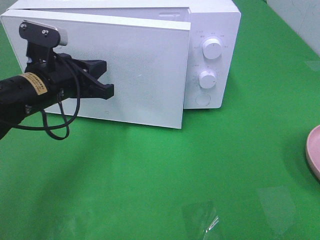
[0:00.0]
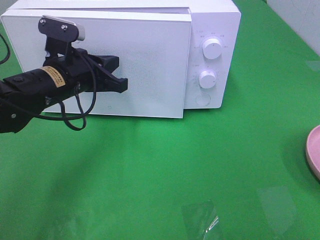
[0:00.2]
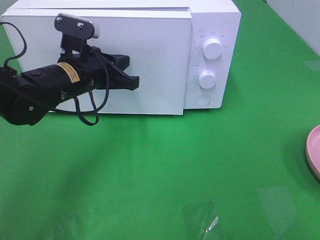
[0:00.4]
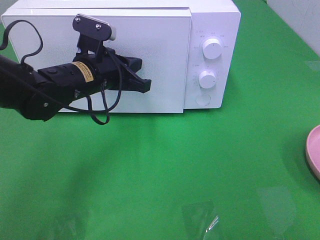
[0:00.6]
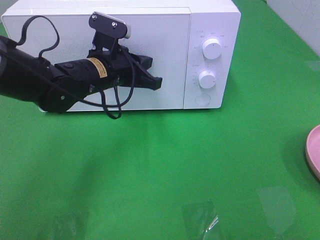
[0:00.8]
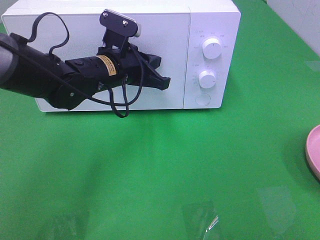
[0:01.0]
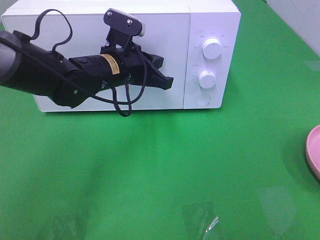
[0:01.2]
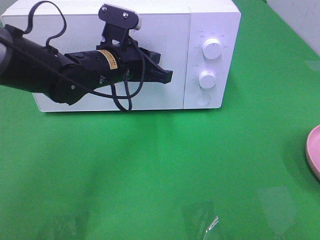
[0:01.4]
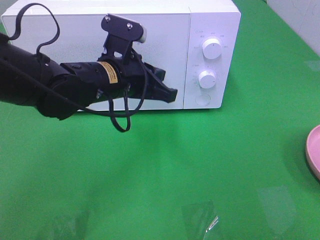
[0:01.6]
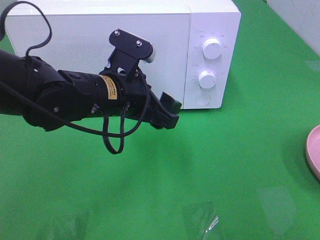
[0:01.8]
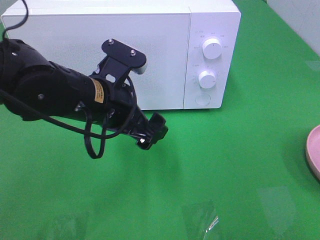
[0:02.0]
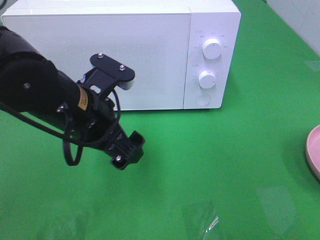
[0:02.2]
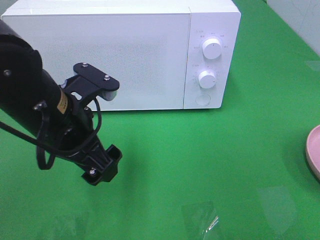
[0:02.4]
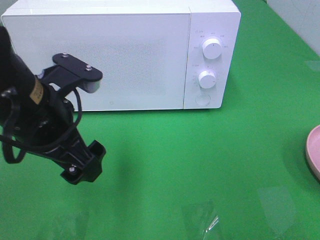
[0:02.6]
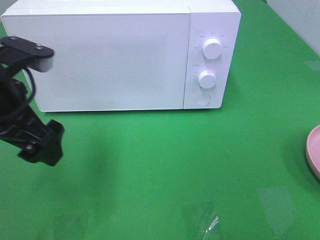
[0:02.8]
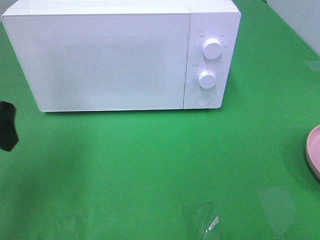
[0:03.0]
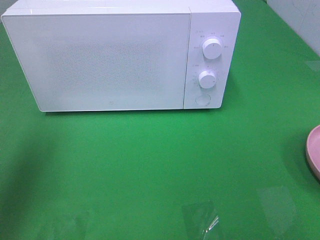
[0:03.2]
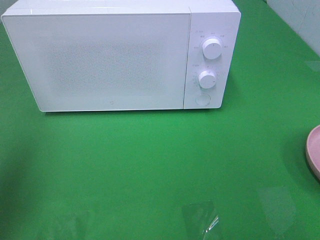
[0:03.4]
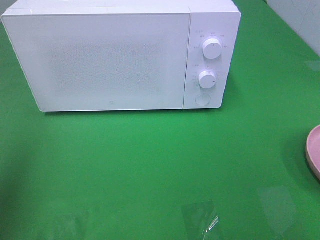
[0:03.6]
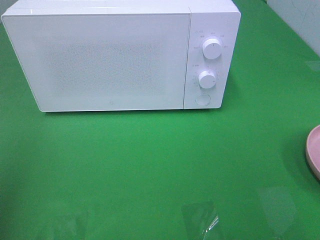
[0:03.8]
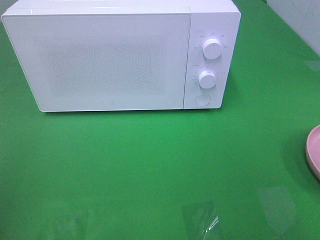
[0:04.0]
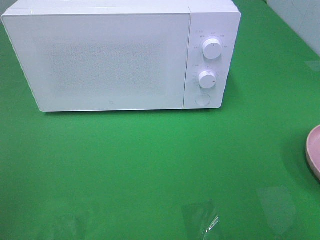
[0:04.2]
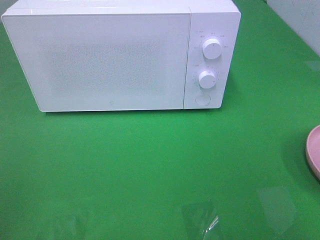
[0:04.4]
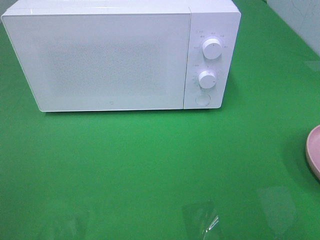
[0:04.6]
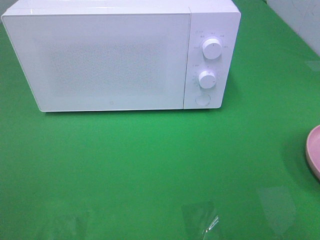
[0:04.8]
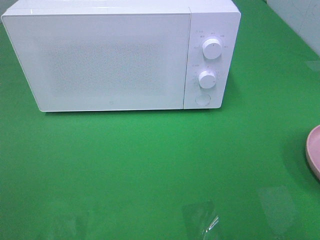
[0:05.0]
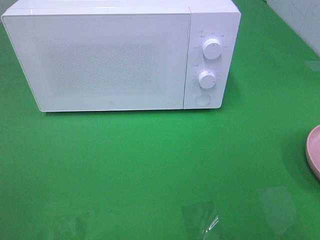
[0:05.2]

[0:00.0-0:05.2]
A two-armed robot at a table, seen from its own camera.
Task of the whole recording: Heat the burger.
0:00.0 to 0:01.8: The left gripper heads to the right, covering approximately 10 cm, and opens its fingers.
0:01.8 to 0:03.4: The left gripper is displaced to the left and upward by some 30 cm.
0:03.4 to 0:05.2: The left gripper moves backward, approximately 20 cm.

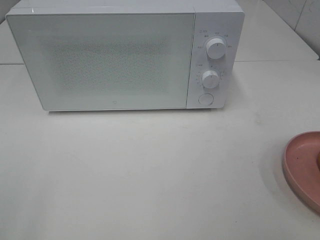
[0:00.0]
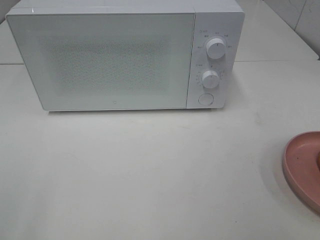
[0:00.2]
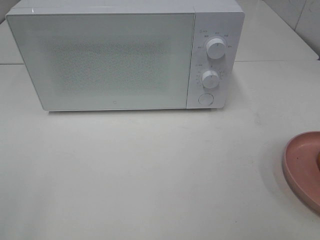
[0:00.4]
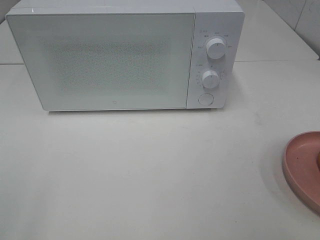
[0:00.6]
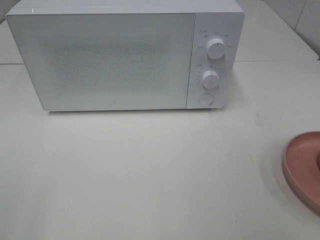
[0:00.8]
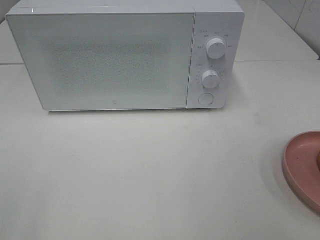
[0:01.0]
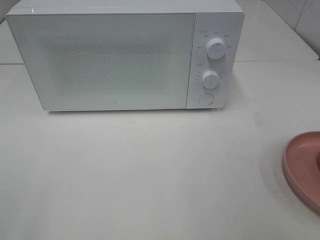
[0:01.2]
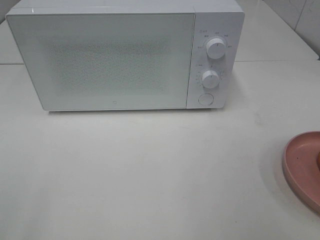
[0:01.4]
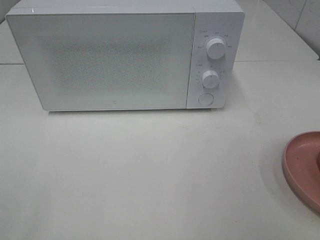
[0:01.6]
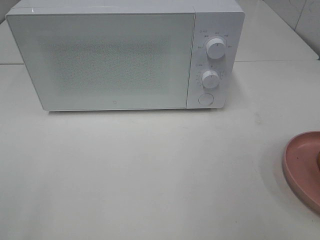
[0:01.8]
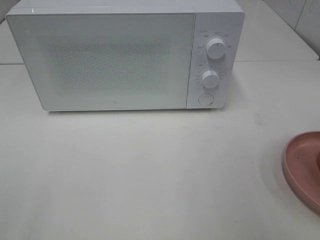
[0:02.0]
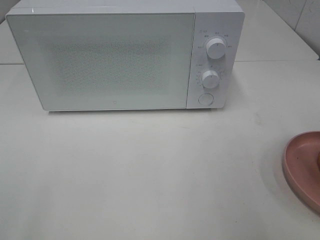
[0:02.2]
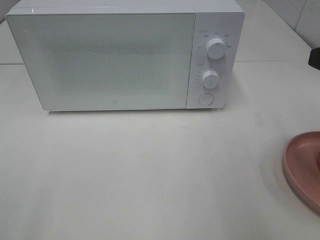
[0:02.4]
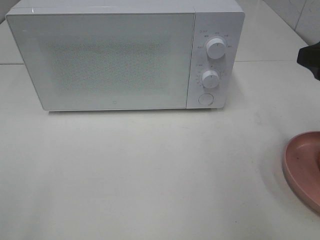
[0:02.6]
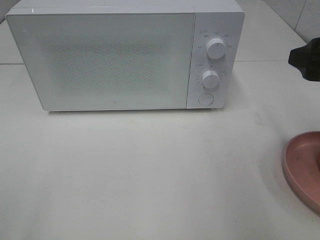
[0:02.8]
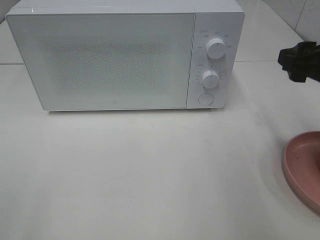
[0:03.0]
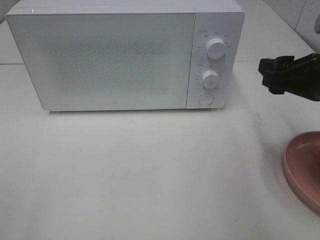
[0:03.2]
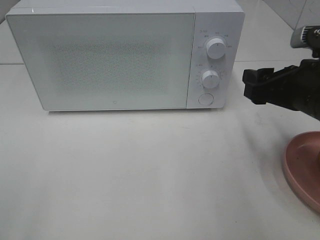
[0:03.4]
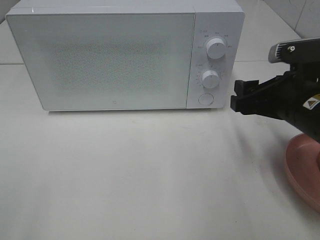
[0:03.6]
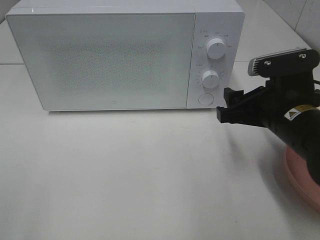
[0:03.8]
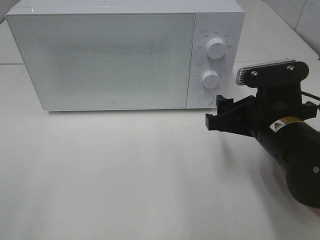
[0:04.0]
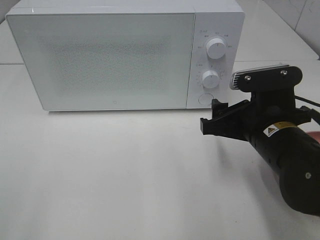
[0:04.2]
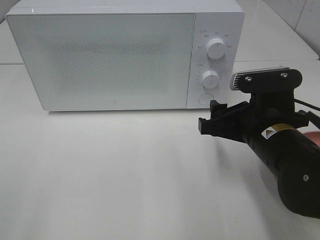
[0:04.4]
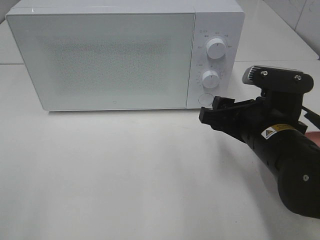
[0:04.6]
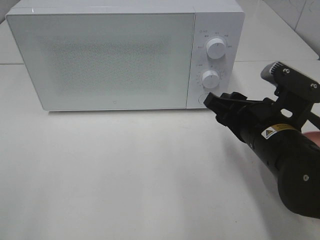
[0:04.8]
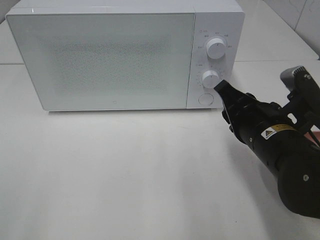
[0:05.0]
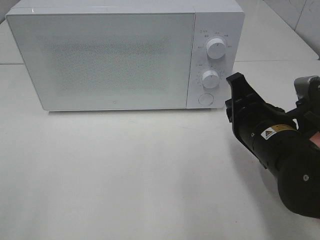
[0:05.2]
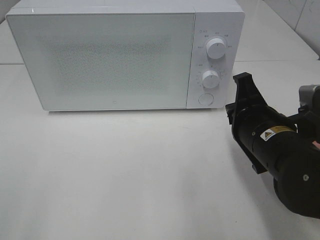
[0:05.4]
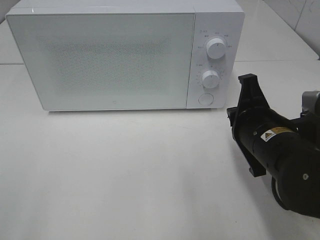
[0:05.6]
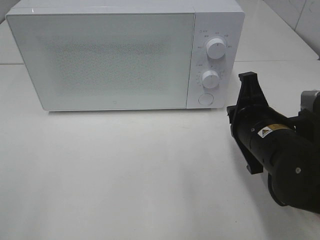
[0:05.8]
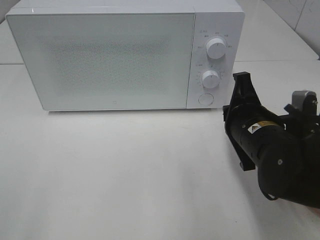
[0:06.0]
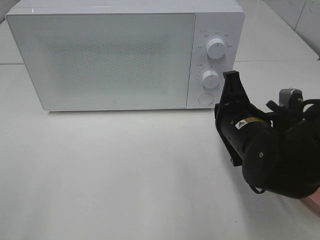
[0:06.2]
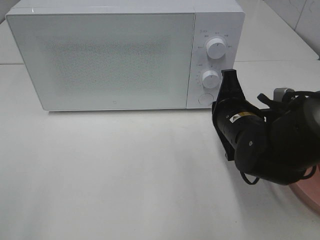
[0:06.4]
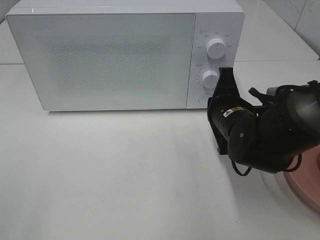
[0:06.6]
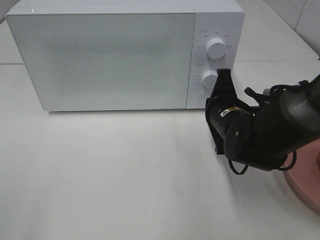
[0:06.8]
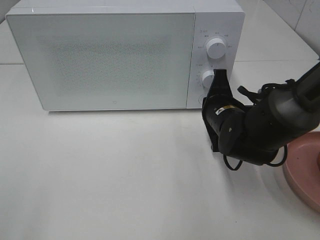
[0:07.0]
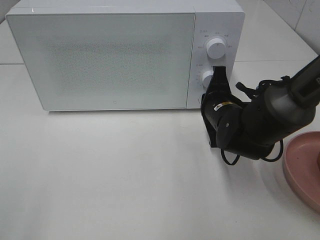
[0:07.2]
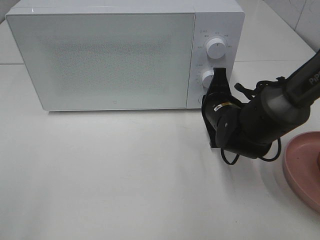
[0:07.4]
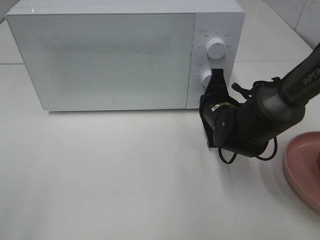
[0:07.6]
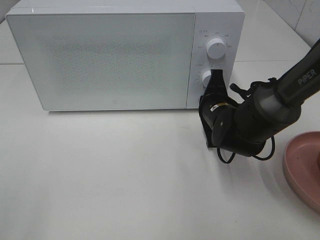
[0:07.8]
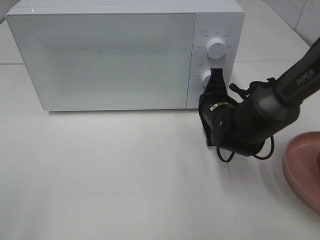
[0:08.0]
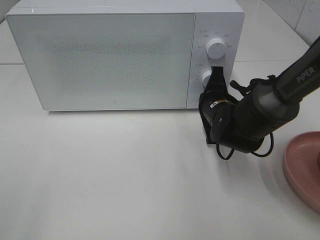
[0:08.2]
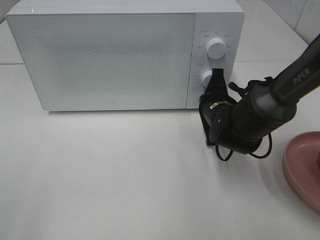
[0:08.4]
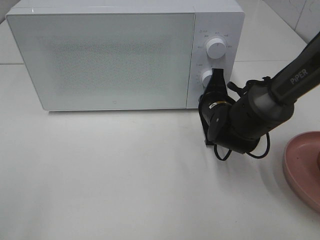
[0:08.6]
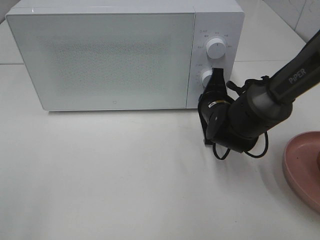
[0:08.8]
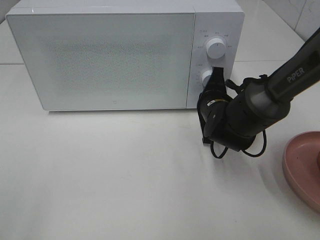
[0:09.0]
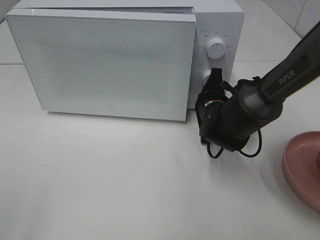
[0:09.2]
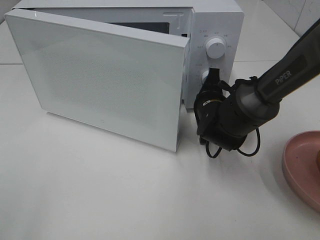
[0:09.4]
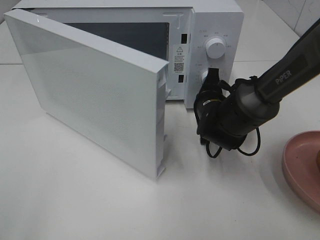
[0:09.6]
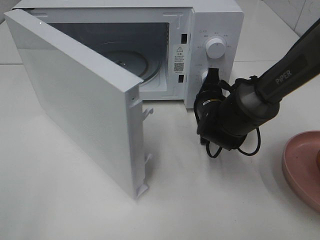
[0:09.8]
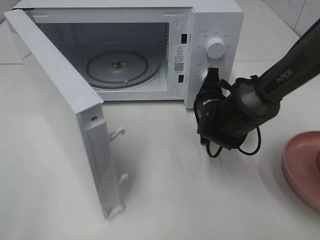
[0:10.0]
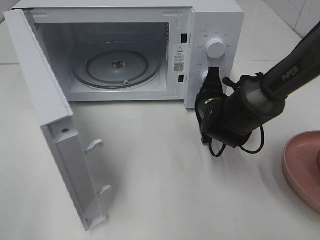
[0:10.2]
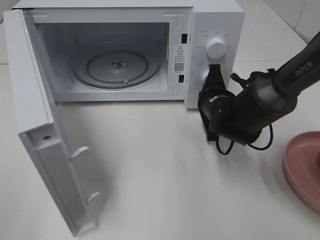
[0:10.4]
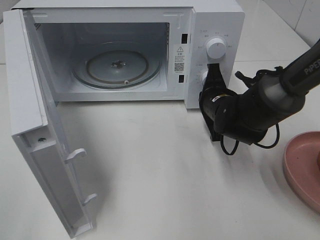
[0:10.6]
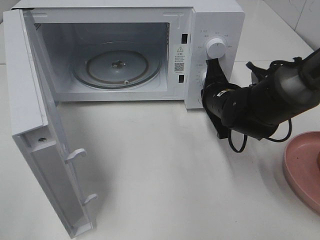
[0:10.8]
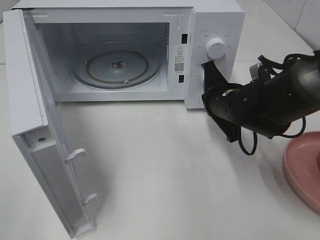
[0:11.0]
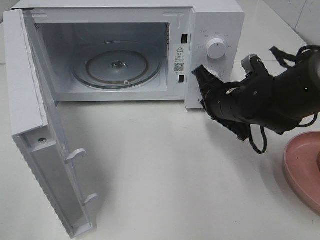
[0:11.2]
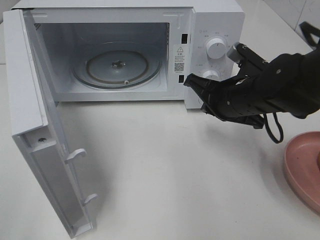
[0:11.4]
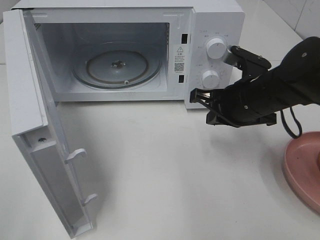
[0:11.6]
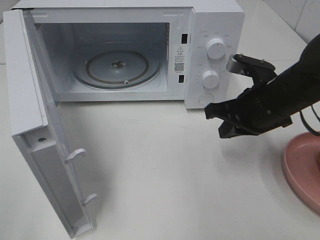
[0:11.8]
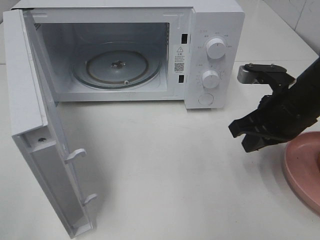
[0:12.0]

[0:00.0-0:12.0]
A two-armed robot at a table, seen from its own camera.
Task of the whole recording: Heat the burger.
Step, 0:00.0 to 0:10.6: Right hand: press the switch.
0:01.6 to 0:03.0: The right gripper moves forward and downward, roughly 15 cm.
0:03.0 to 0:04.4: The right gripper is displaced to the left and downward by some 15 cm.
0:04.4 to 0:06.0: The right gripper closes up.
0:06.0 to 0:07.6: The right gripper shifts some 10 cm forward and downward.
0:07.6 to 0:09.0: The grippers move only a little.
0:10.4 to 0:12.0: The right gripper travels upward, backward and to the right by about 15 cm.

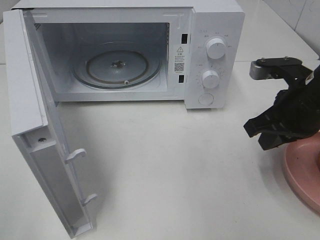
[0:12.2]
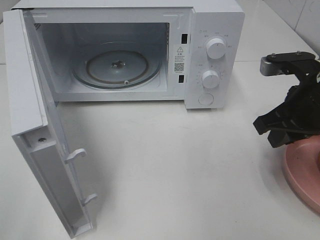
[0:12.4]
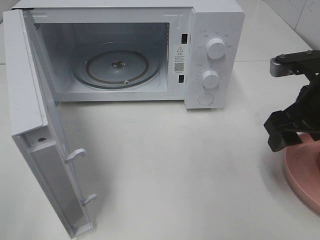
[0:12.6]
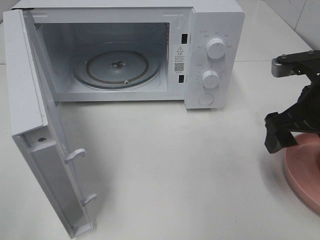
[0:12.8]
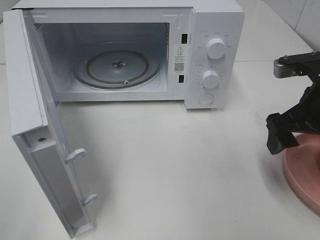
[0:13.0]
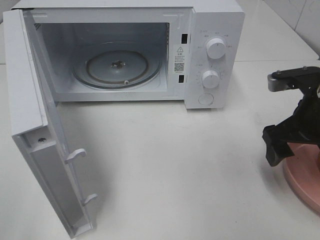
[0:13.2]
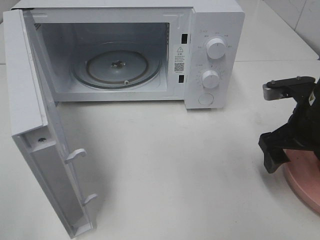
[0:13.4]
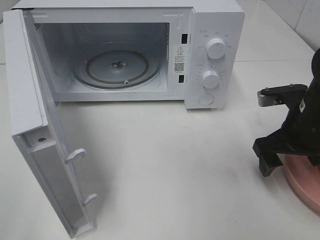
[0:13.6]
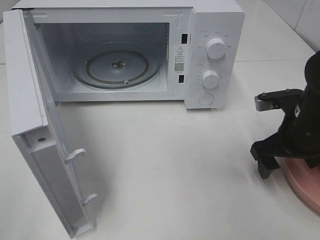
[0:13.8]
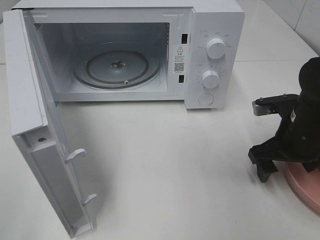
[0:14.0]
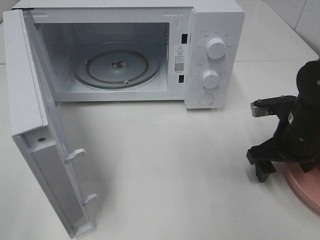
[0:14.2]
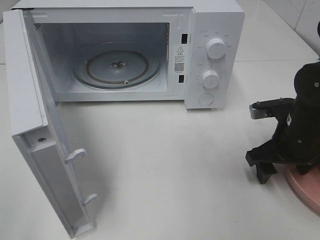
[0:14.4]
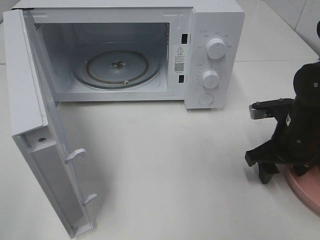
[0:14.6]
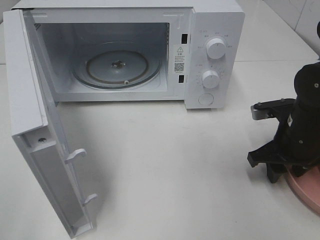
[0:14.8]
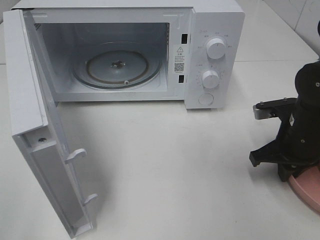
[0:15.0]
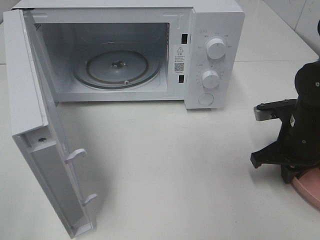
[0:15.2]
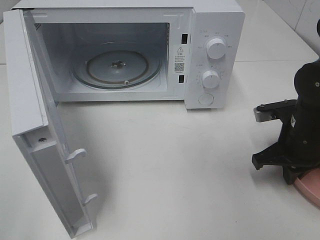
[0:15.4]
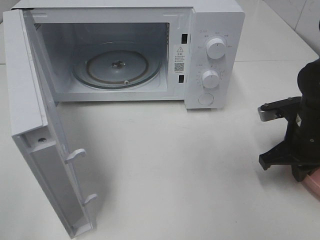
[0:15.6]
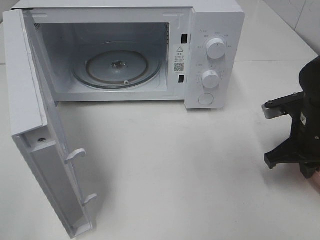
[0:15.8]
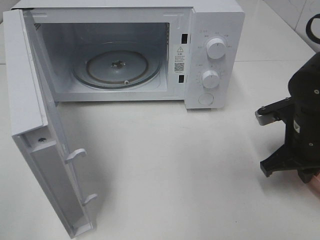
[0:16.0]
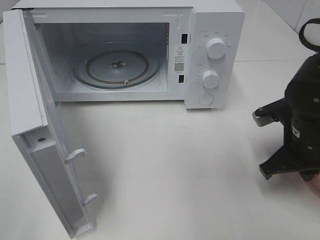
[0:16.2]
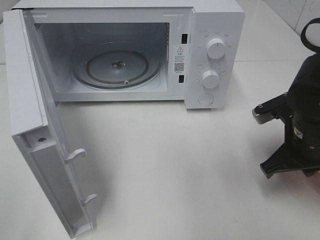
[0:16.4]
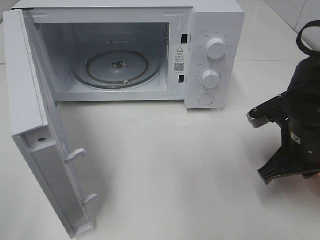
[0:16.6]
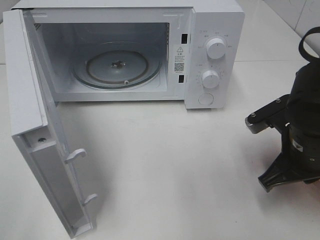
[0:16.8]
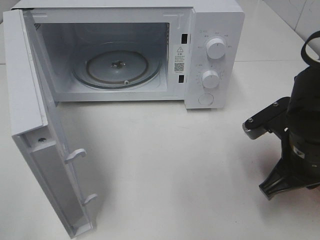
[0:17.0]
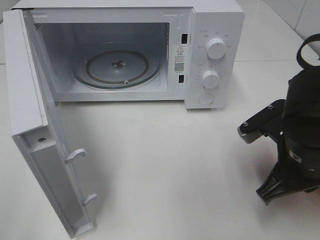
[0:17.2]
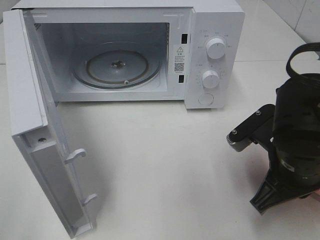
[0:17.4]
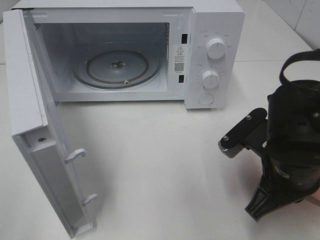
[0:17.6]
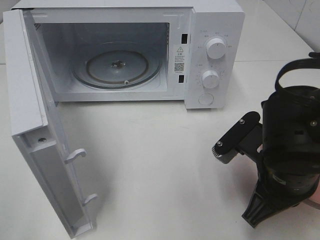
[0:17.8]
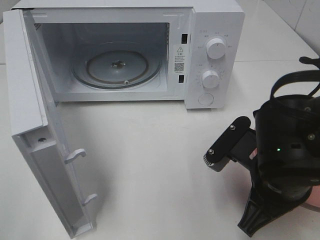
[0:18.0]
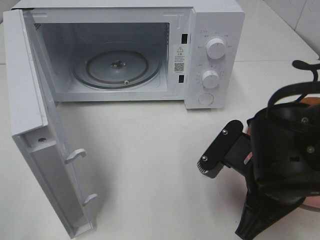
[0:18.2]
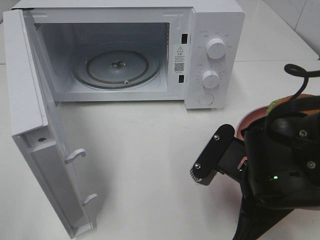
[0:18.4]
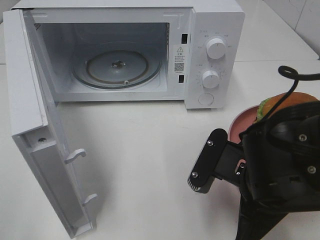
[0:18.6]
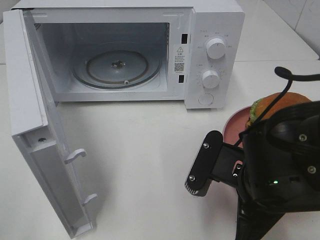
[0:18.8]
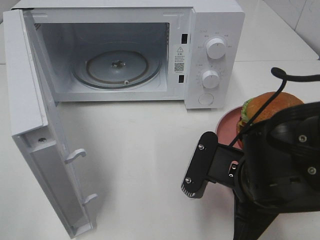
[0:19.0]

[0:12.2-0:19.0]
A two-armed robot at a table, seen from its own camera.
Task of the whole recording: Heat the burger.
Step, 0:12.2 to 0:15.2: Right hand: grab the plate with the hamburger.
0:12.2 to 0:13.6: The right gripper ends up roughly 5 cm from where it was, and opens its fingers.
0:13.6 to 0:15.0: The right gripper closes its fingers.
0:15.0 to 0:16.2: The grippers make only small movements.
0:16.2 to 0:17.6: The right gripper heads backward and to the left, covering approximately 10 cm.
0:17.6 to 0:19.0: The right gripper ends up roughly 5 cm from where it was.
